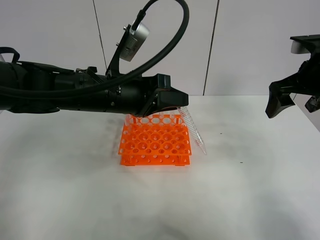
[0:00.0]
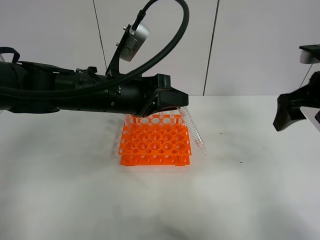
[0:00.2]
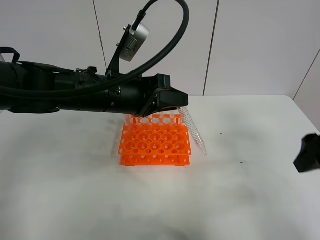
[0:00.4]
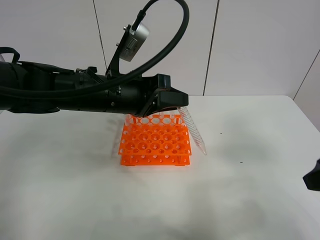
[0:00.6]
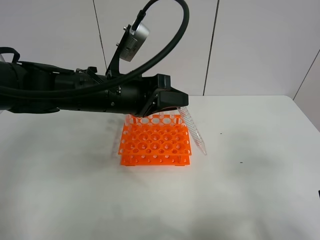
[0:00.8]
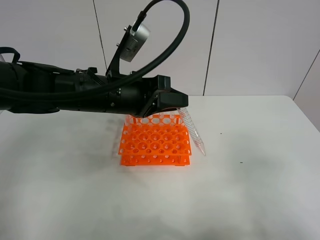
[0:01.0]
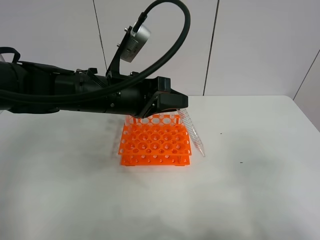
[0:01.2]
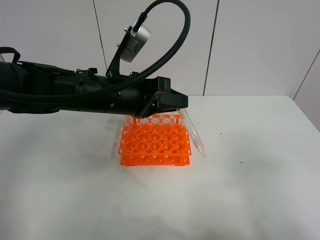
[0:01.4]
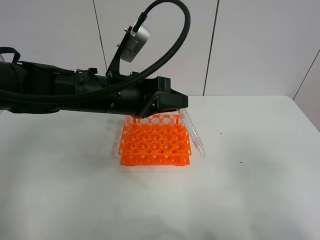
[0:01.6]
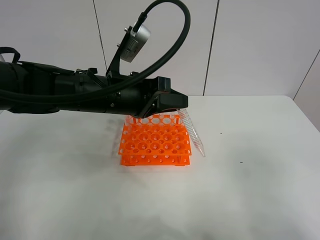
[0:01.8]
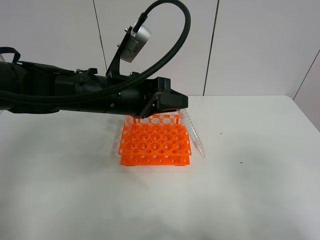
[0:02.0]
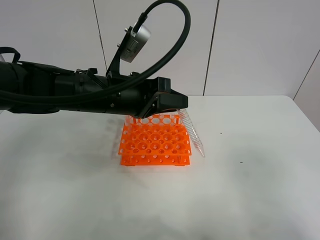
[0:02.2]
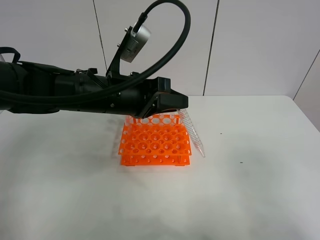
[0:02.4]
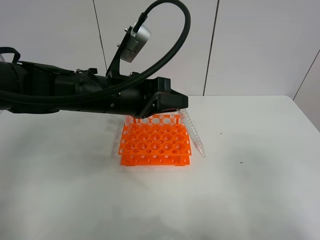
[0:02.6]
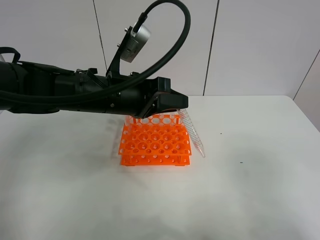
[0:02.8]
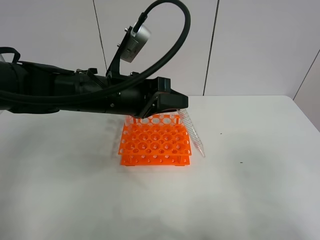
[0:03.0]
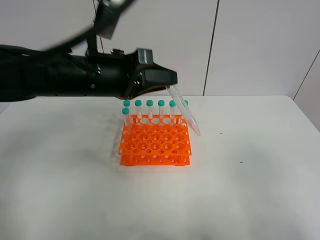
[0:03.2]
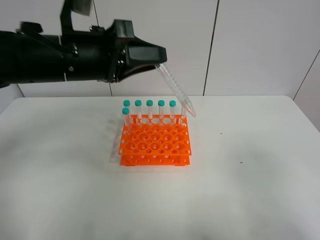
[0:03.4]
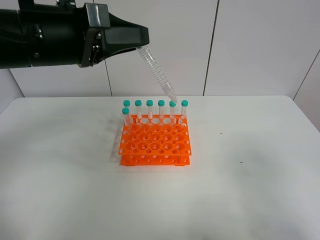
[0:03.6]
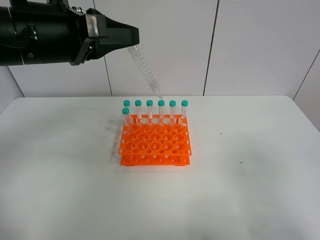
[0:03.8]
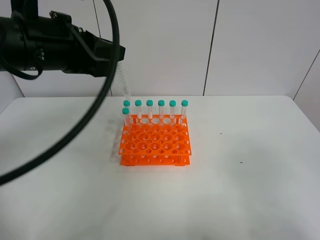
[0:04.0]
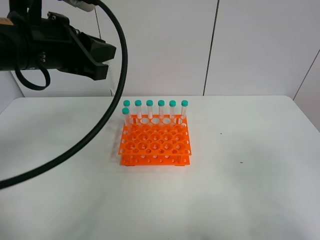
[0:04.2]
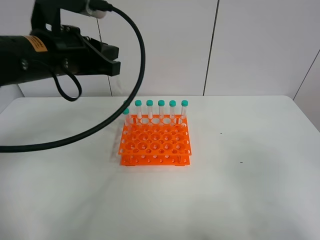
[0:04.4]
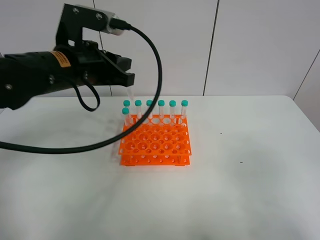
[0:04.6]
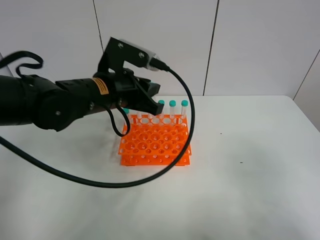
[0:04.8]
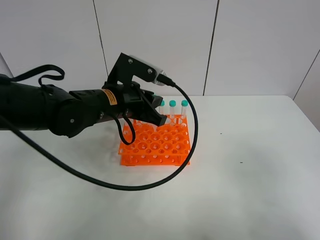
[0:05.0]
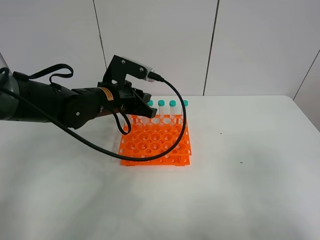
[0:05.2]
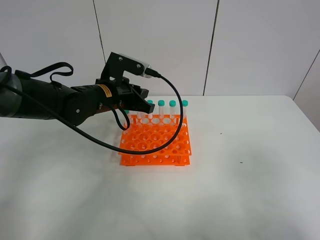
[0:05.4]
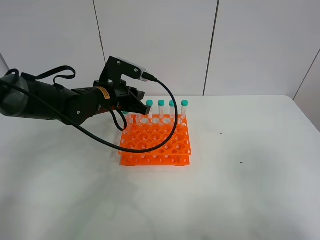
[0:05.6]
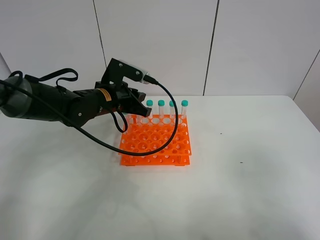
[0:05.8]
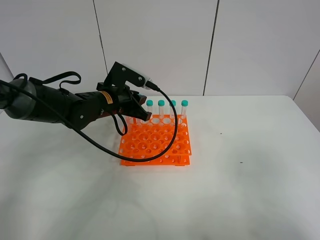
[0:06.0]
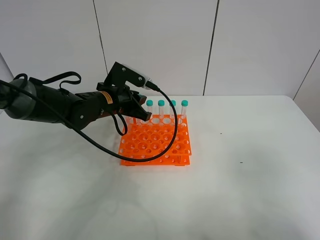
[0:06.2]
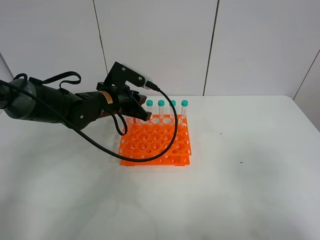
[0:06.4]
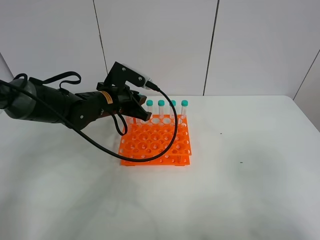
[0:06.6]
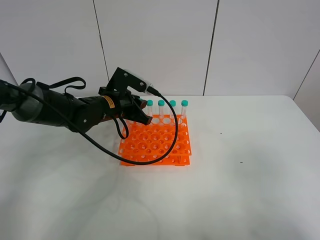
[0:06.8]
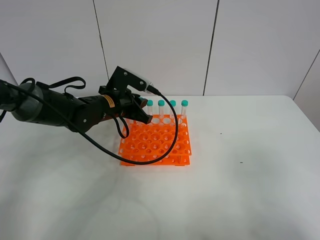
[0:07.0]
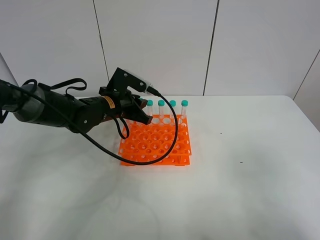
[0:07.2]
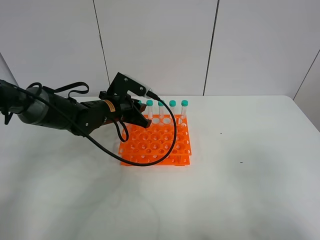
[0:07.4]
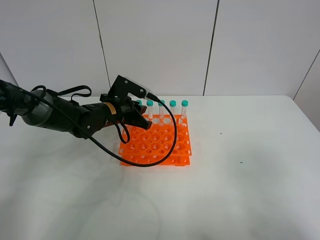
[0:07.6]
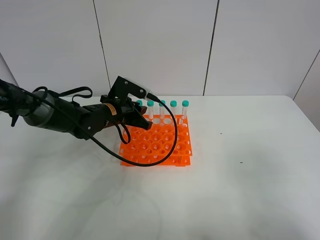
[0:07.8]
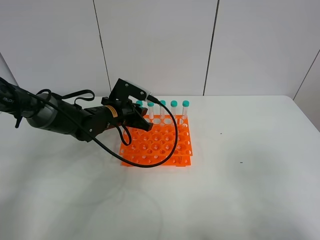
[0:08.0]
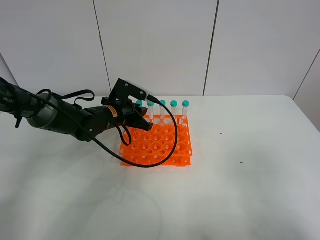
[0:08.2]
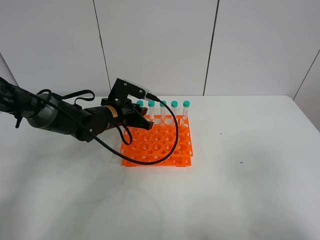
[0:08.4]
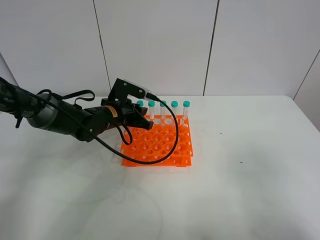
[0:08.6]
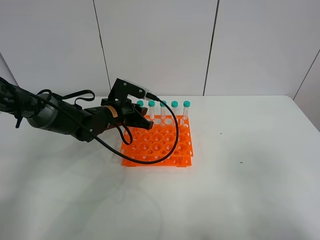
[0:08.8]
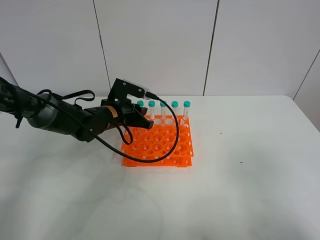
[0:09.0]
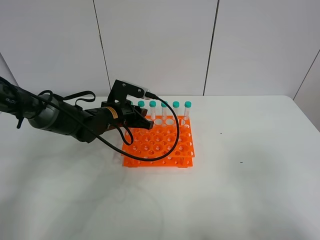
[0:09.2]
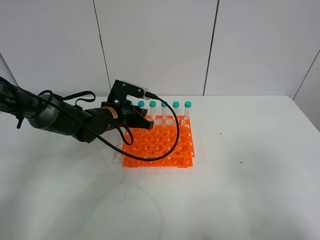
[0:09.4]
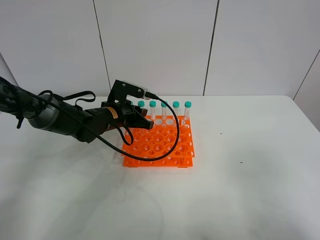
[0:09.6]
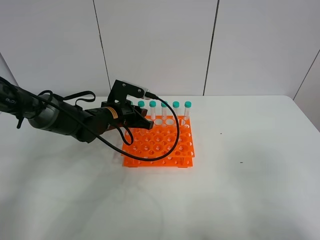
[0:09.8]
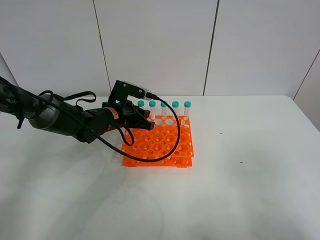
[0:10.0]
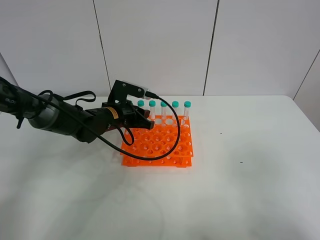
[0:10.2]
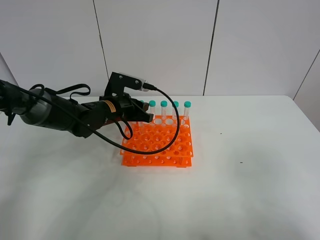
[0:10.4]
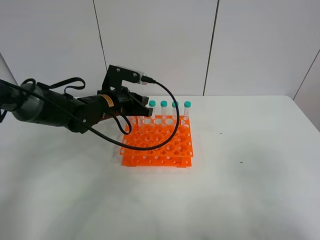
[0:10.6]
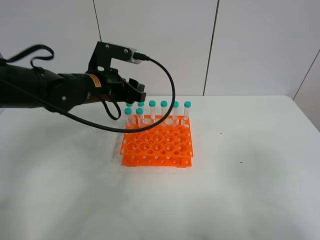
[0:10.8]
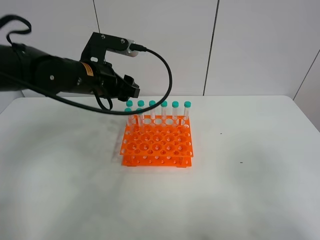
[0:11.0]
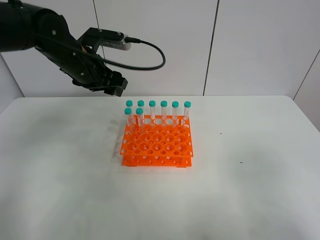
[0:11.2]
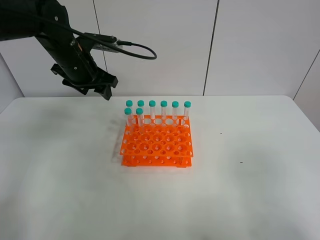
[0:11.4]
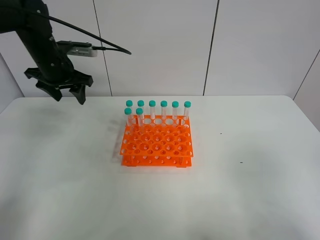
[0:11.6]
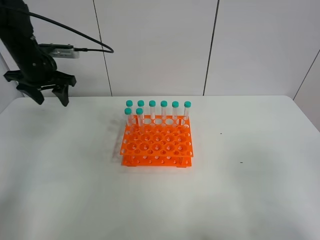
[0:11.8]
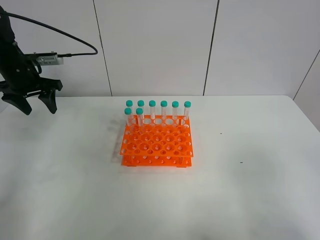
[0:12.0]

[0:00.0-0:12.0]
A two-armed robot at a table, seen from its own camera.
Task of the whole recording: Put the test tube on the table back onto the test tube rack.
Step, 0:00.0 to 0:10.0: Place the test tube on the test tube rack with the left gripper.
0:00.0 to 0:01.6: The right gripper moves backward, about 30 cm.
0:03.0 to 0:04.4: The left gripper heads upward and to the left, covering roughly 10 cm.
0:04.4 to 0:06.0: The left gripper goes about 15 cm downward and forward.
0:06.0 to 0:09.0: The grippers make only small movements.
0:09.0 to 0:10.4: The left gripper opens.
0:10.4 to 0:12.0: The left gripper heads to the left and upward, covering approximately 25 cm, and opens.

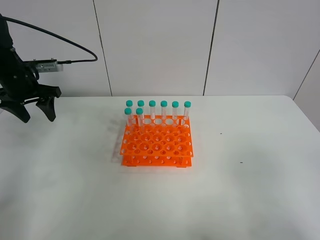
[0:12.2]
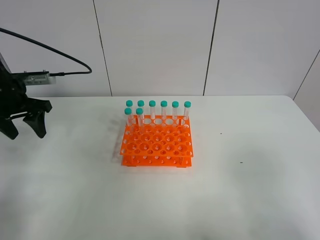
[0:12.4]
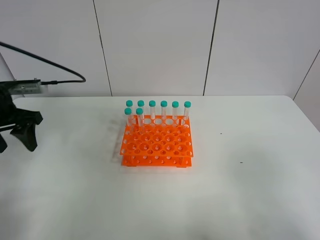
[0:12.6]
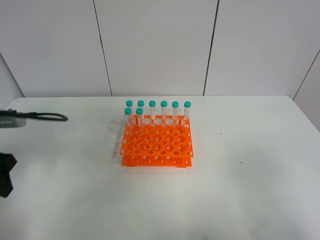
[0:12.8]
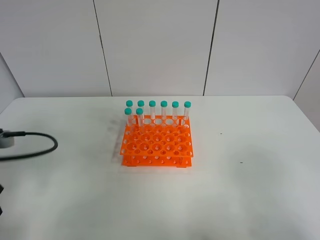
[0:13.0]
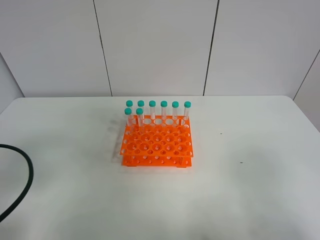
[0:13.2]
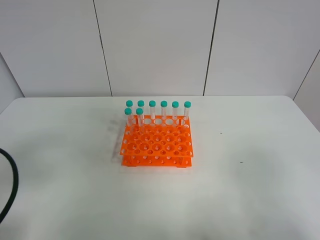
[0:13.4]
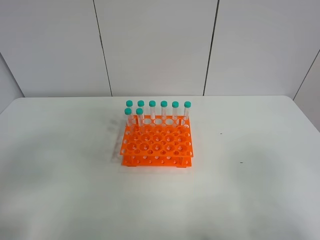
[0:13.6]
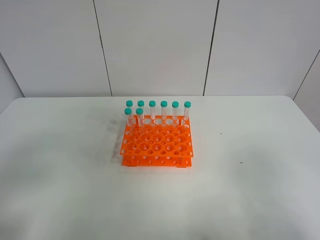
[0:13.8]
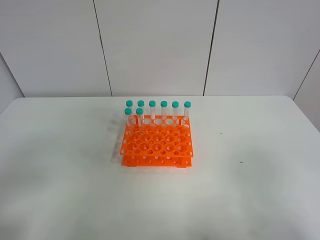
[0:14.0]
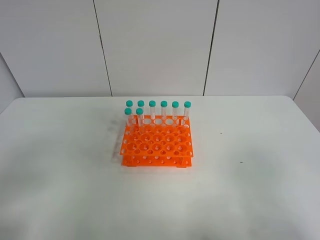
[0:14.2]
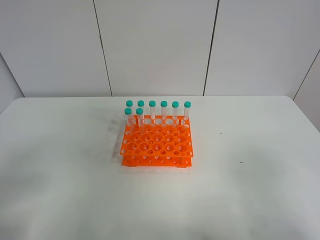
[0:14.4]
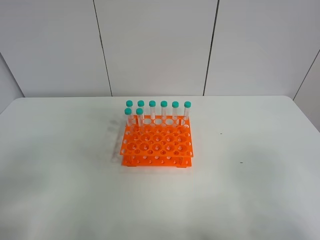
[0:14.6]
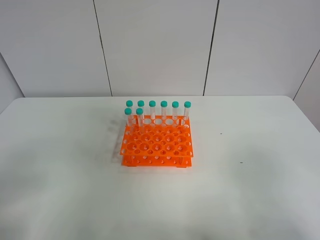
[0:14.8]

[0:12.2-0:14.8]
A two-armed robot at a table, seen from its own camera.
Task of the whole recording: Put the test tube on the table back onto the test tube rack.
0:12.2 to 0:13.4: The left gripper travels backward by roughly 30 cm.
0:13.4 to 0:14.8: The left gripper travels backward by approximately 5 cm.
